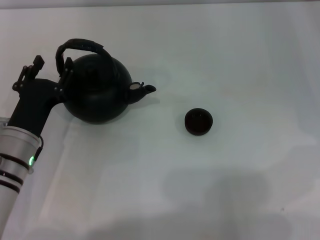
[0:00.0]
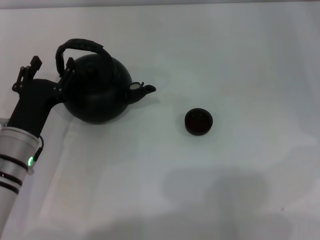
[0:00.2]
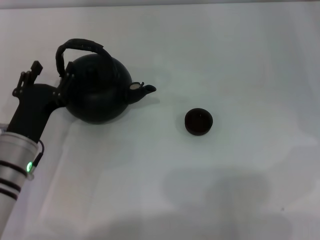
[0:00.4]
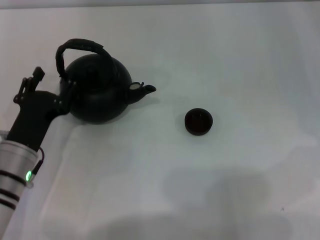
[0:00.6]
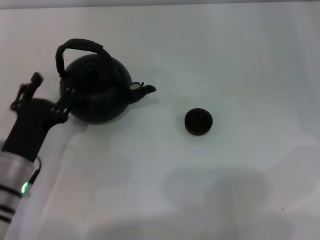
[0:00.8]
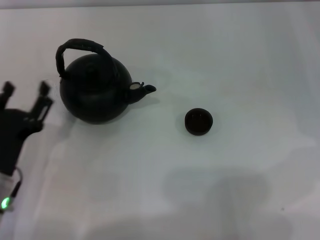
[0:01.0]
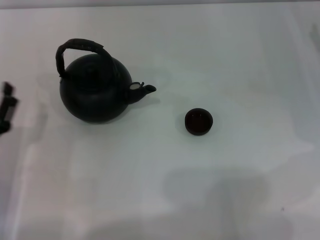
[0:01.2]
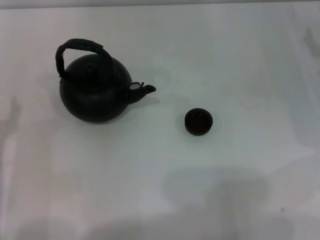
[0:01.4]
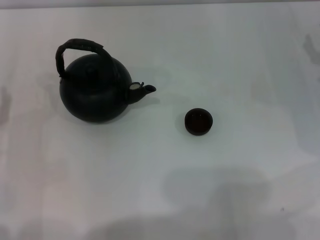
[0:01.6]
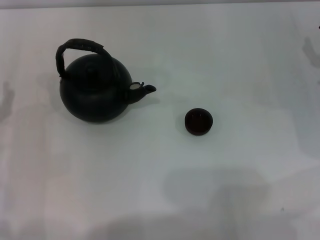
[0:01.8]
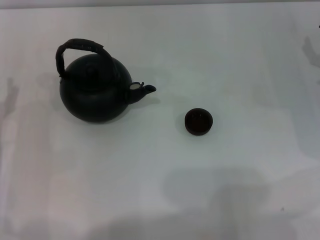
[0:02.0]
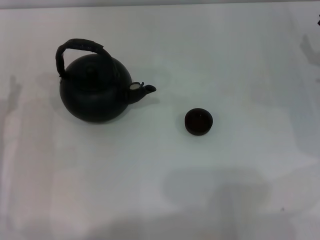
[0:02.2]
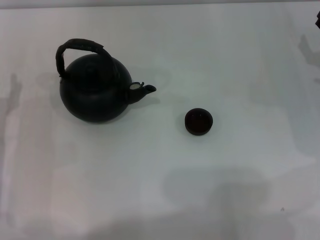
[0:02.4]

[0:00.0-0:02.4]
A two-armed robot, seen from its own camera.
Task of the whole recording: Grasp the handle of the teapot with one hand and pour tea into the teacup.
0:00.0 to 0:01.2: The left gripper travels backward by roughly 5 cm.
0:01.2 to 0:02.4: The left gripper moves forward, about 5 cm.

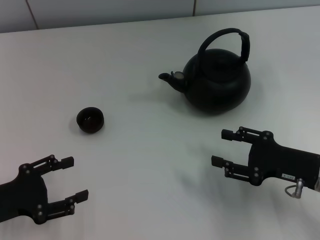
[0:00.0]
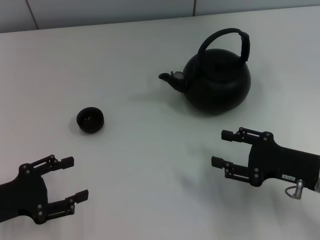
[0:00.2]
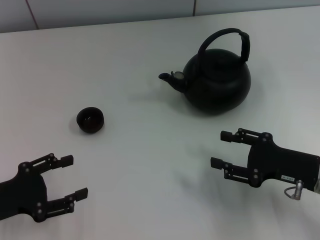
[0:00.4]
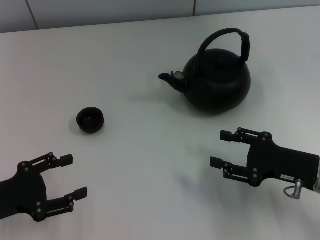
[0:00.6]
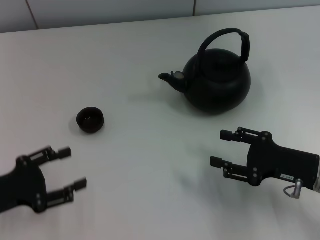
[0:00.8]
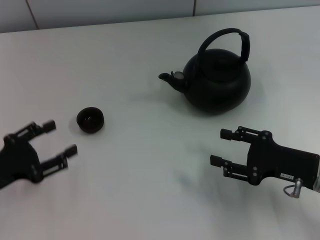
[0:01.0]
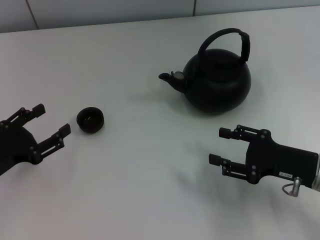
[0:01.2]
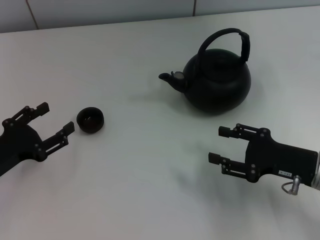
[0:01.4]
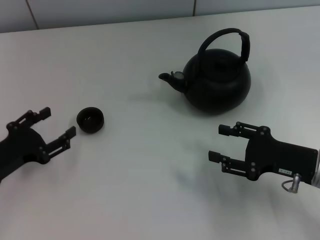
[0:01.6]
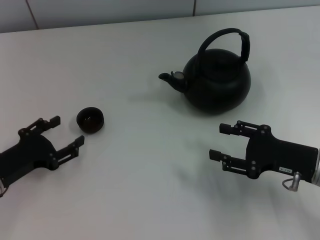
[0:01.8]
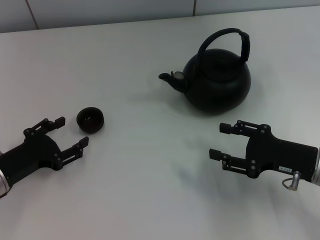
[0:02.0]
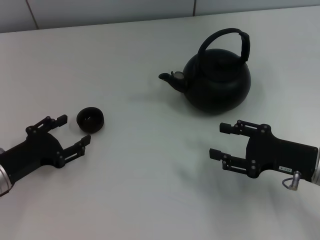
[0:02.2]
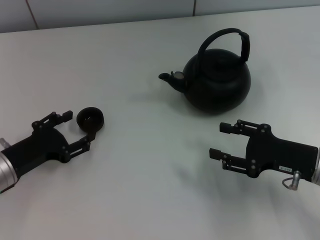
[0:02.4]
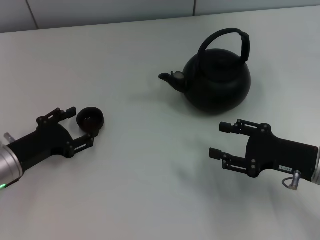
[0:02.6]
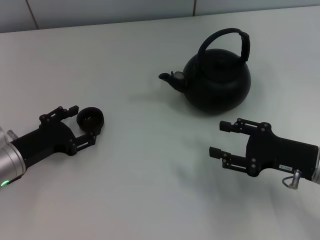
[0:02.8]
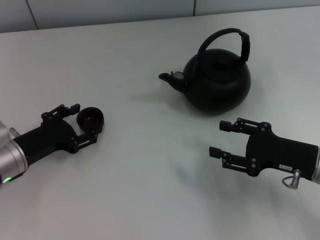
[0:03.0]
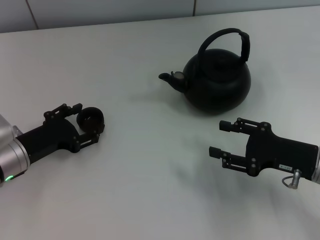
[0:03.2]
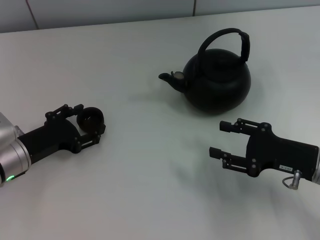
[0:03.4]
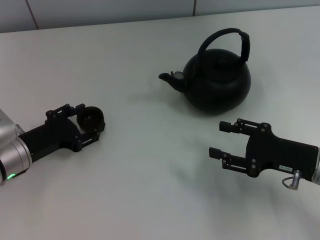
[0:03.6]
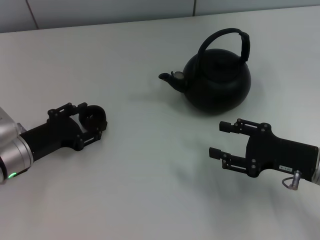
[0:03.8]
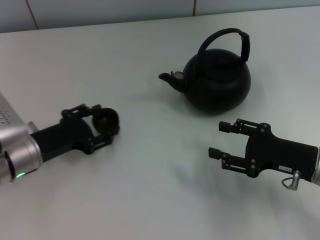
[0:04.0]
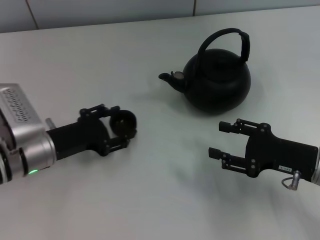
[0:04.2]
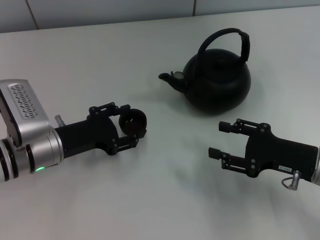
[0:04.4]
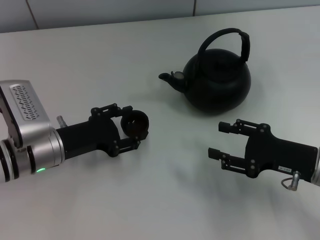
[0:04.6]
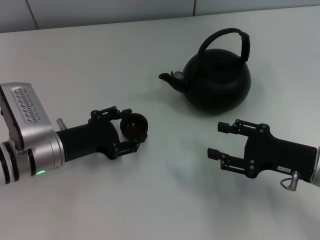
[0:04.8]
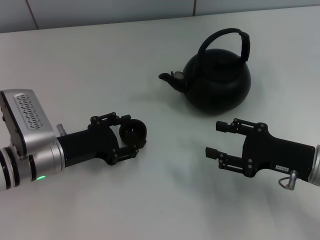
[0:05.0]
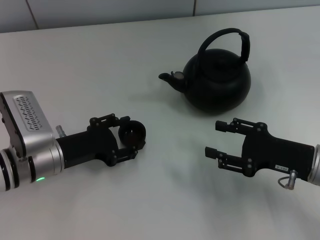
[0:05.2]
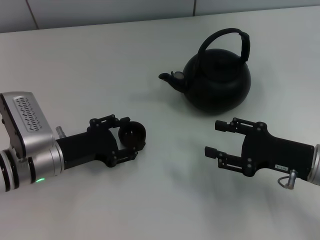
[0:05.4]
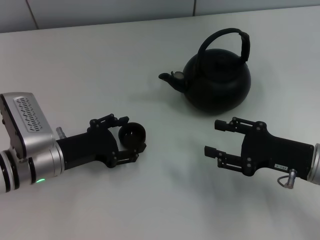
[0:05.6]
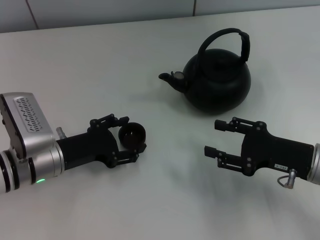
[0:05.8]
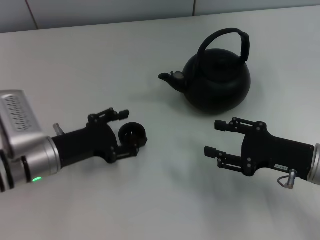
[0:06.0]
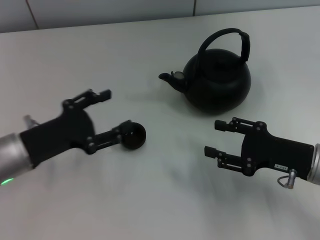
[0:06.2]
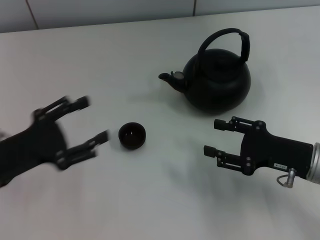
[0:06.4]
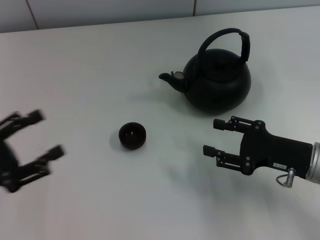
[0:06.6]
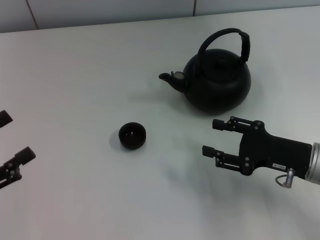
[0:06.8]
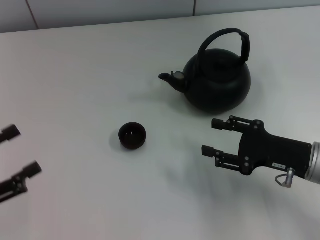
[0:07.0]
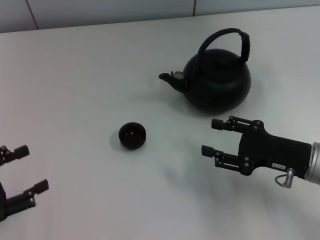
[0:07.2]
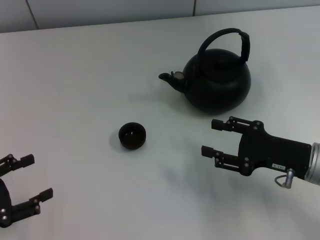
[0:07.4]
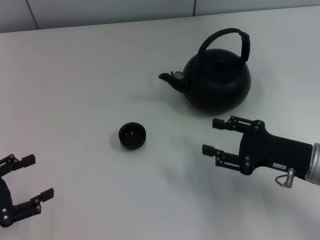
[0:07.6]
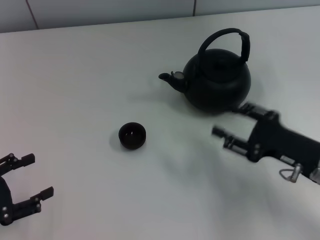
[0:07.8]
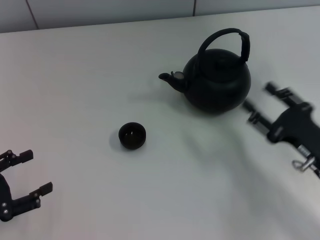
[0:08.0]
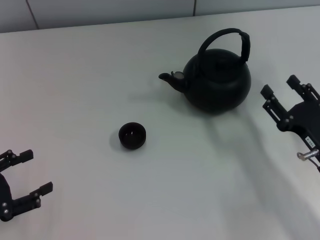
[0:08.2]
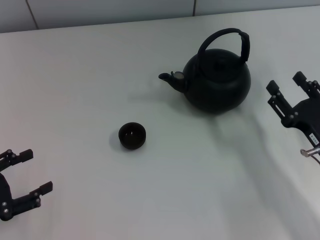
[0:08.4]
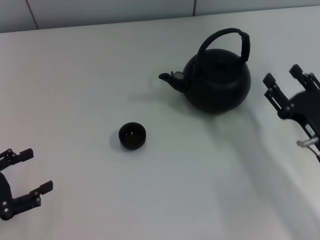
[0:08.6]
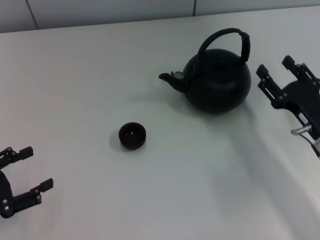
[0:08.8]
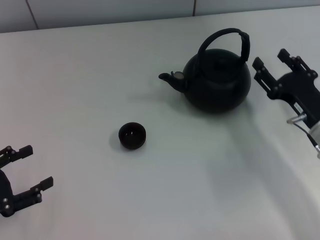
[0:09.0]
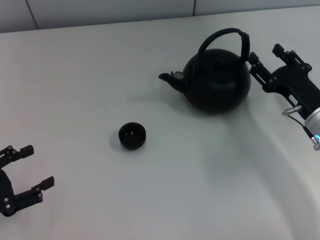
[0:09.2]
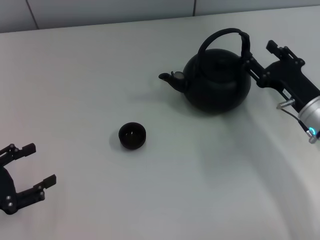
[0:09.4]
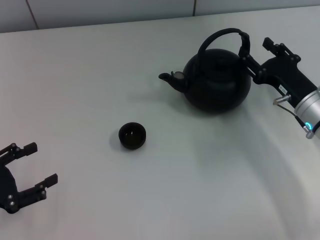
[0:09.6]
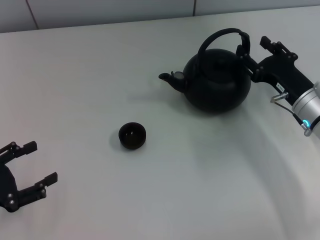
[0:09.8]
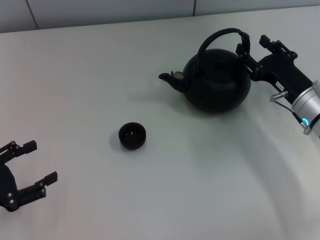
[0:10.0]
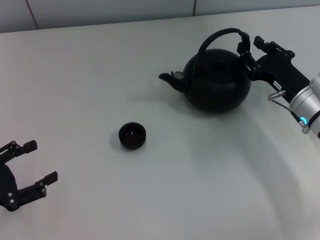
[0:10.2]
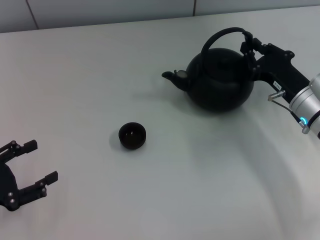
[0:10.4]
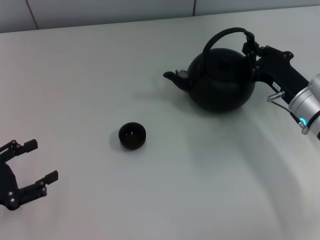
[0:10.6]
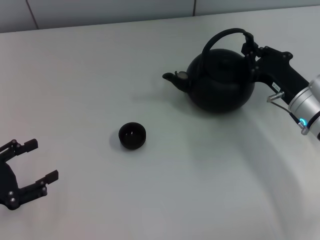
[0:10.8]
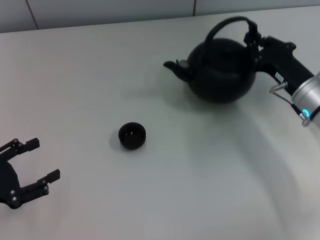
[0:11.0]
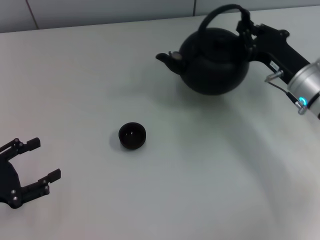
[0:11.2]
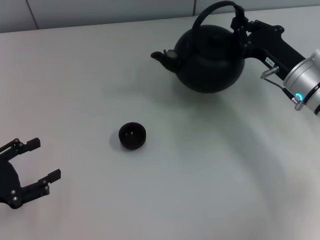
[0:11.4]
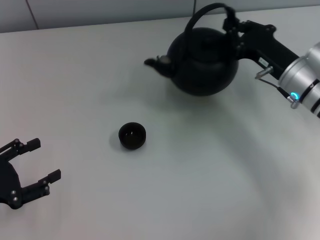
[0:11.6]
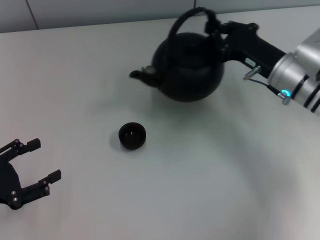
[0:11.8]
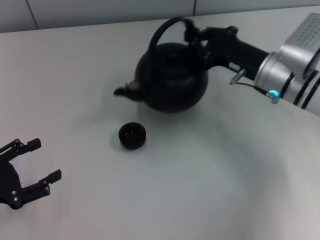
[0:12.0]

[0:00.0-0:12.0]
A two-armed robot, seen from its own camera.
Task of the whole recording: Grasp the handle of the teapot with one hand and pour tea into the teacup.
Step, 0:00.0 to 0:03.8: Pick up the teacup with the left gripper.
Step, 0:04.0 to 0:06.2: Place the teacup in the center of view with the left gripper.
Step, 0:06.4 to 0:11.2: Pick up the teapot with the right gripper.
0:01.6 to 0:03.0: The left gripper ends up about 5 cm from where it was.
0:03.0 to 0:04.4: The left gripper moves to the right, about 5 cm.
0:04.4 to 0:06.0: The grippers stay close to where they were, moving slightly.
0:06.0 to 0:07.6: The left gripper is displaced to the left and backward by about 20 cm.
0:09.0 to 0:10.4: The right gripper ends up approximately 5 cm from where it was, and closes.
0:10.4 to 0:12.0: The right gripper shifts by about 10 cm, and closes up.

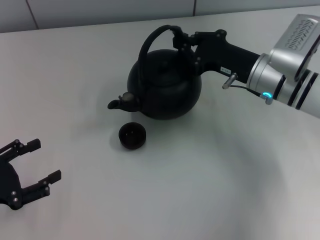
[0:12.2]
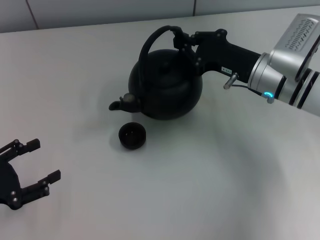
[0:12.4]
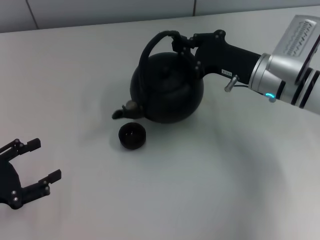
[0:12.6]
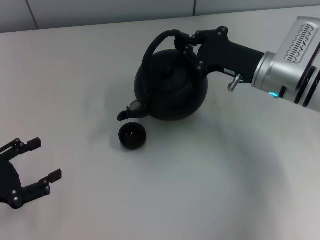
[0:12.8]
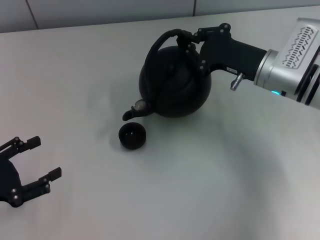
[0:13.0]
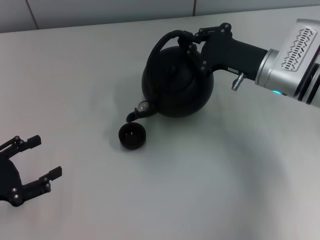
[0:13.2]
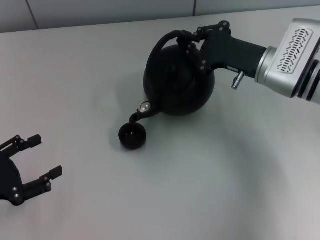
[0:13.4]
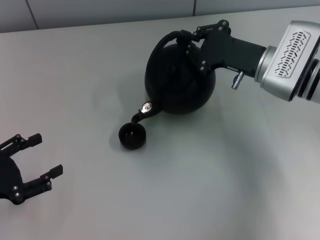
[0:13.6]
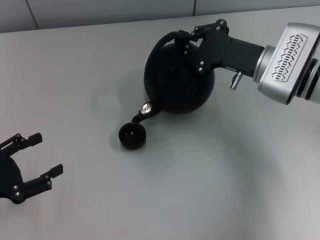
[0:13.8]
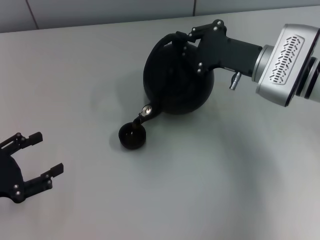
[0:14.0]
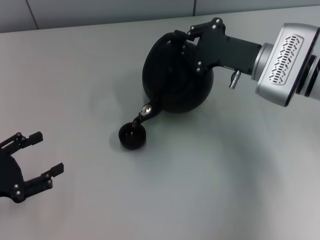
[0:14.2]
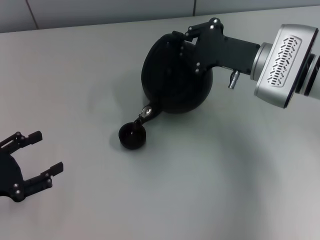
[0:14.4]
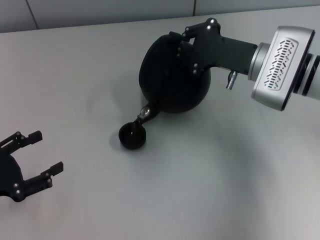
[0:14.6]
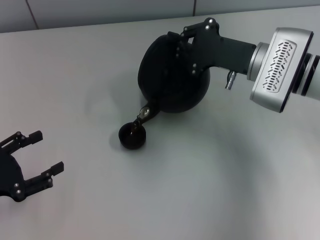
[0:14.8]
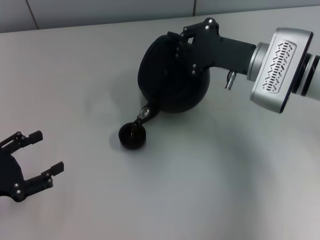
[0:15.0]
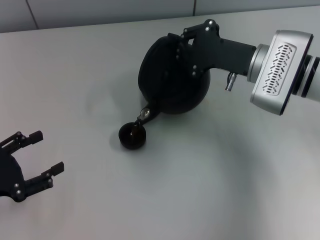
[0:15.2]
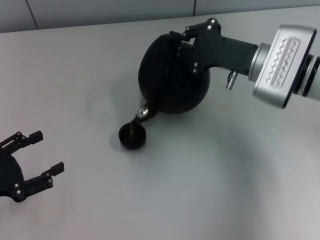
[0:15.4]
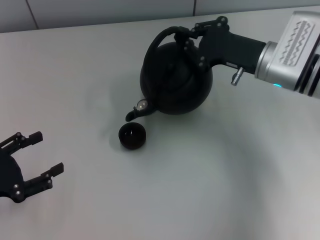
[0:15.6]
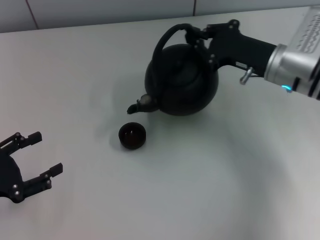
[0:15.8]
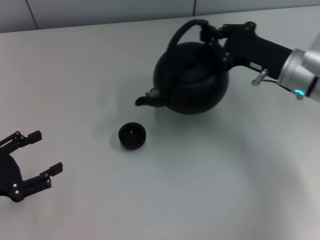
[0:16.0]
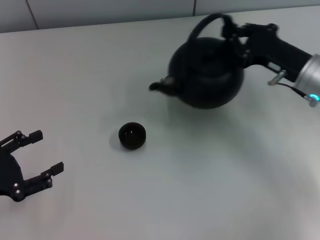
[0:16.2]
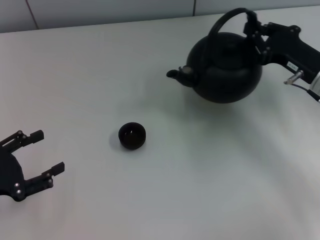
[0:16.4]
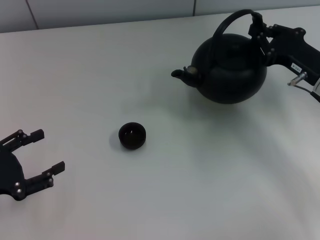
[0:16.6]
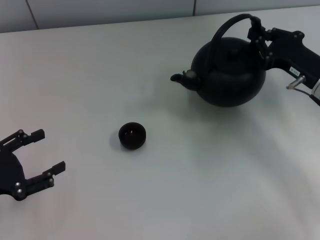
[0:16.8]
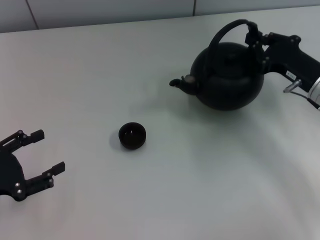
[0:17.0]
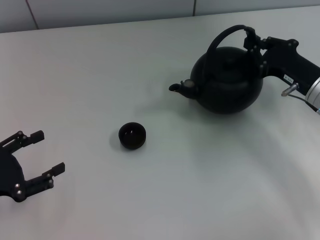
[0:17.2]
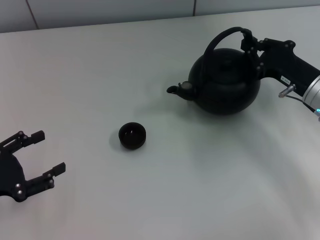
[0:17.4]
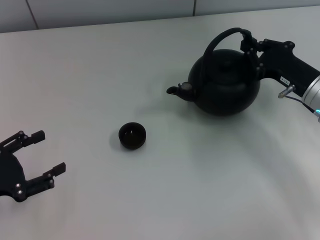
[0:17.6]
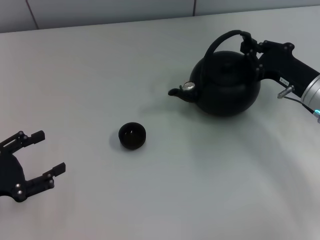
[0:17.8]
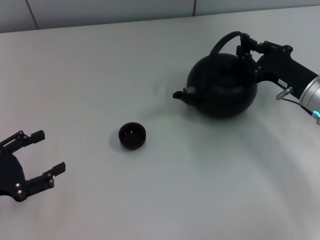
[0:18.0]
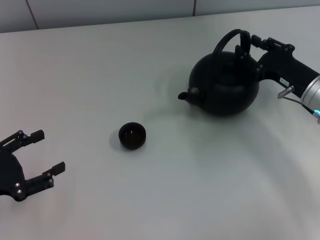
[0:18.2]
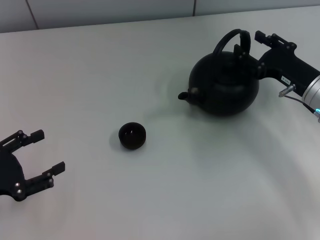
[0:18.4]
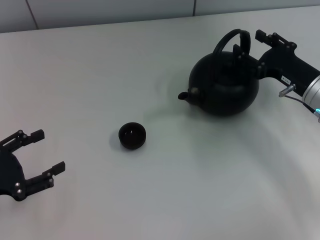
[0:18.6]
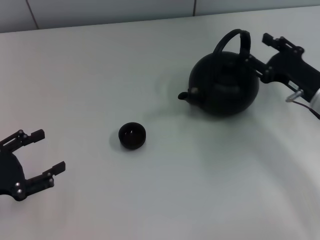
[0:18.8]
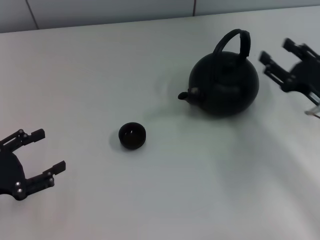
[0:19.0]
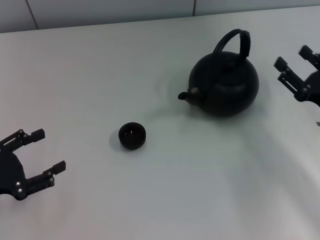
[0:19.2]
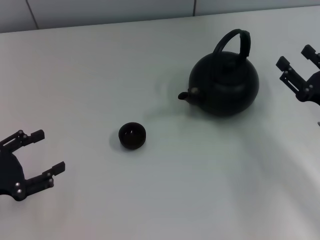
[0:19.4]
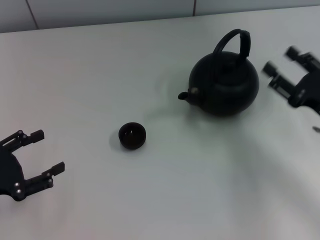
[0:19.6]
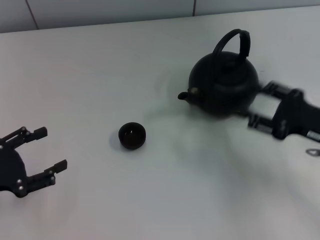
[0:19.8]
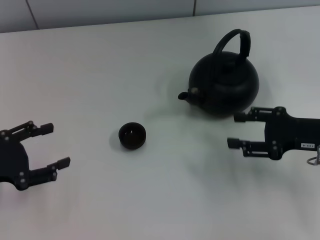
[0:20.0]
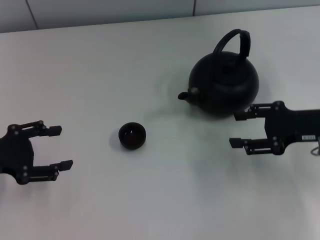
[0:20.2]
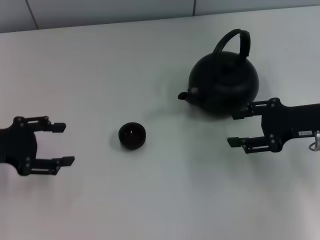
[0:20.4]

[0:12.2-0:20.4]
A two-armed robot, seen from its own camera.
Task of the whole recording: Grasp the handle of the teapot with one hand and pour tea into the teacup.
Step, 0:16.2 to 0:18.8: Put down the teapot with the right gripper.
0:13.8 to 0:15.4: The grippers make only small movements.
0:15.4 to 0:17.2: The right gripper goes approximately 10 cm to the right.
0:17.2 to 0:18.8: The right gripper opens.
0:18.8 to 0:20.4: The left gripper shifts some 10 cm forward and upward.
